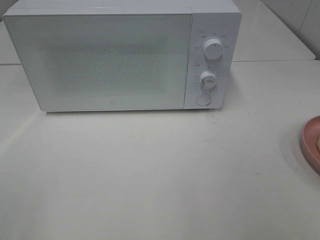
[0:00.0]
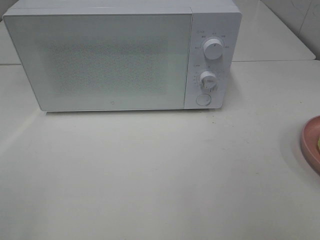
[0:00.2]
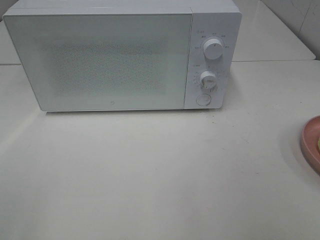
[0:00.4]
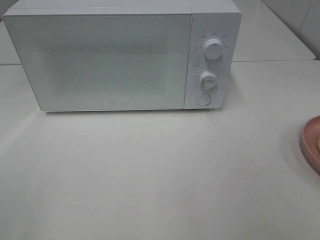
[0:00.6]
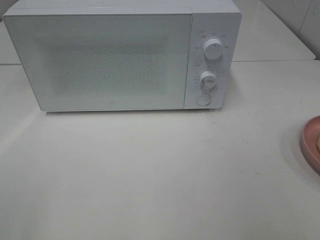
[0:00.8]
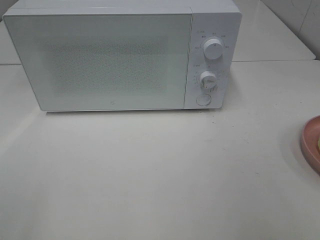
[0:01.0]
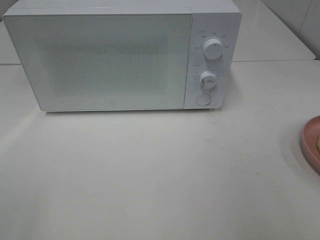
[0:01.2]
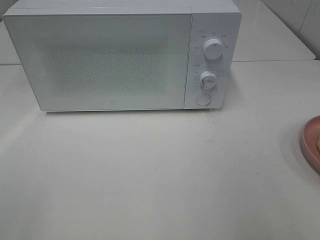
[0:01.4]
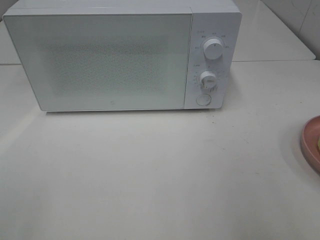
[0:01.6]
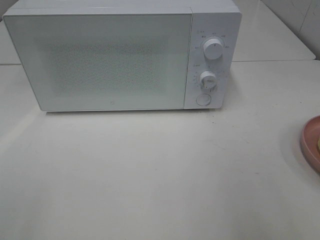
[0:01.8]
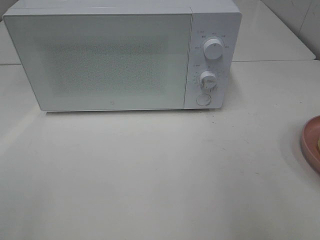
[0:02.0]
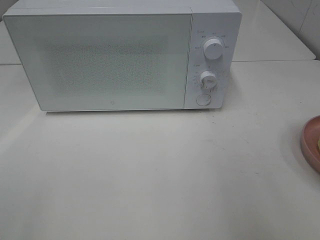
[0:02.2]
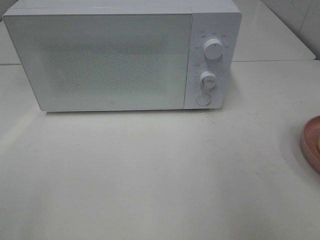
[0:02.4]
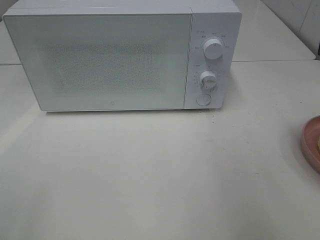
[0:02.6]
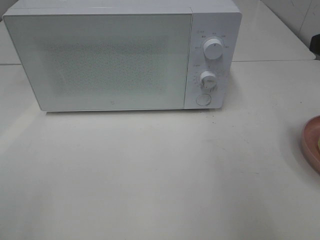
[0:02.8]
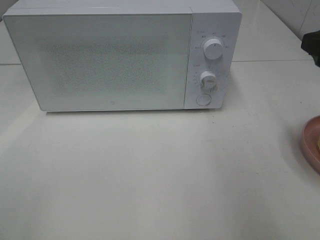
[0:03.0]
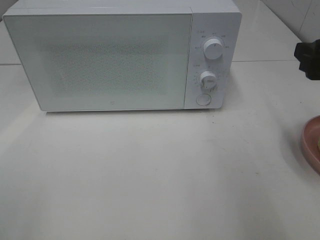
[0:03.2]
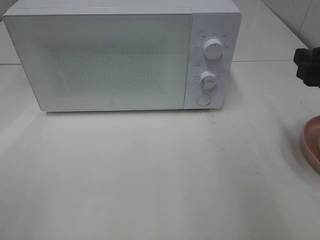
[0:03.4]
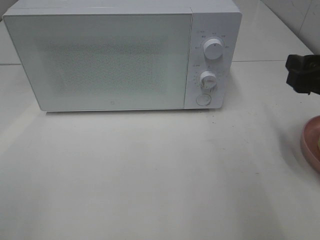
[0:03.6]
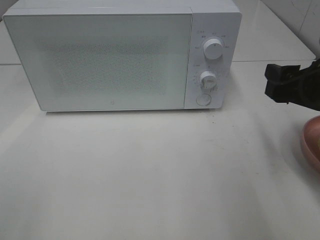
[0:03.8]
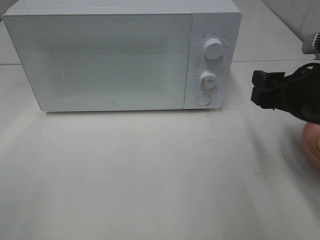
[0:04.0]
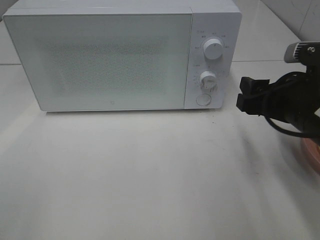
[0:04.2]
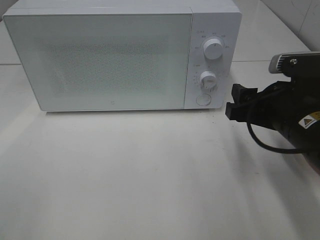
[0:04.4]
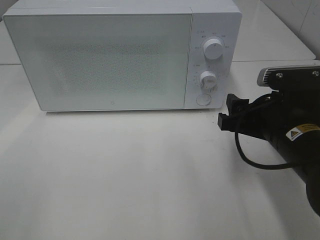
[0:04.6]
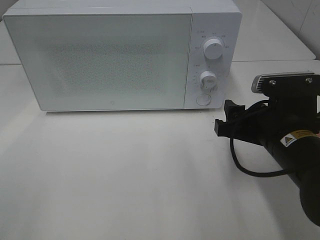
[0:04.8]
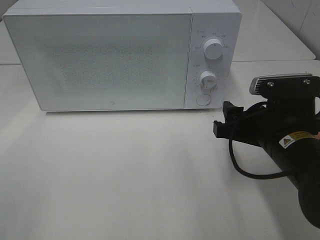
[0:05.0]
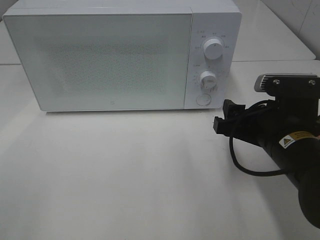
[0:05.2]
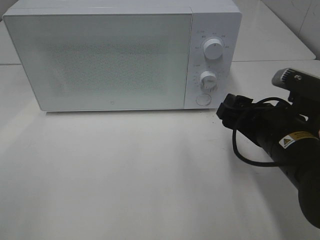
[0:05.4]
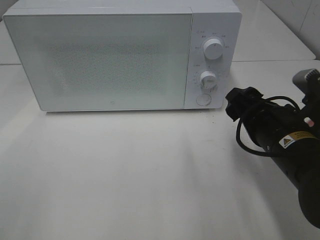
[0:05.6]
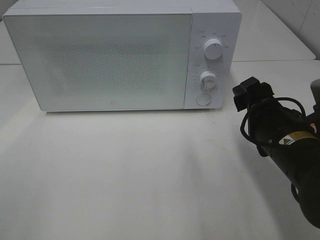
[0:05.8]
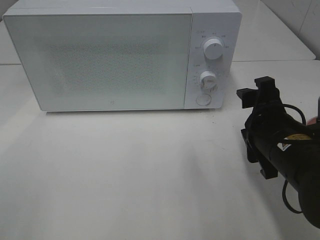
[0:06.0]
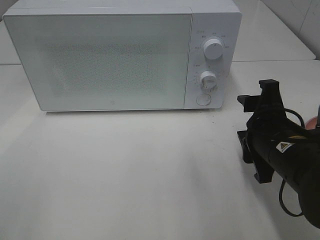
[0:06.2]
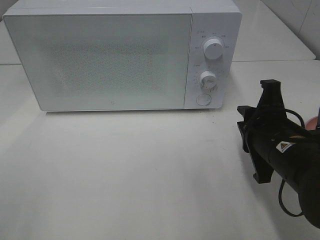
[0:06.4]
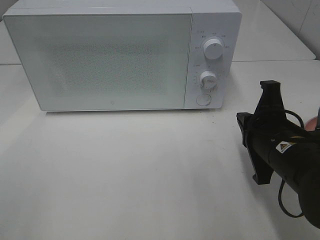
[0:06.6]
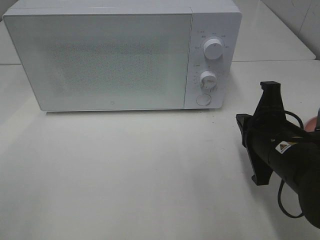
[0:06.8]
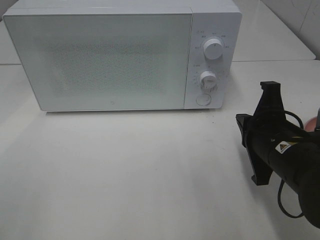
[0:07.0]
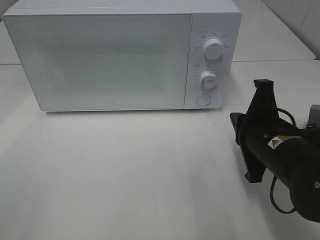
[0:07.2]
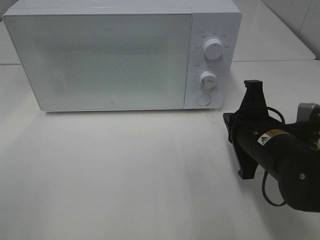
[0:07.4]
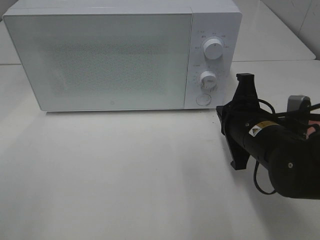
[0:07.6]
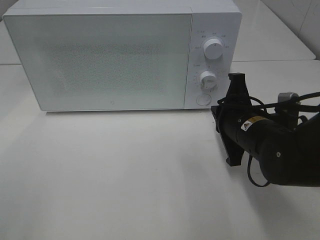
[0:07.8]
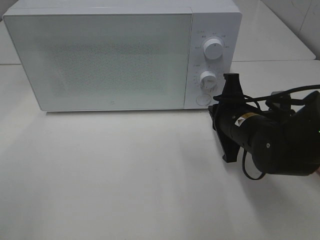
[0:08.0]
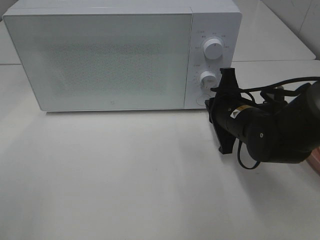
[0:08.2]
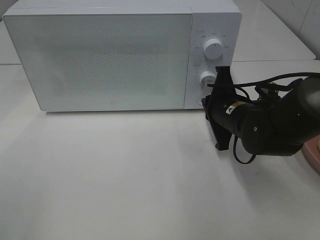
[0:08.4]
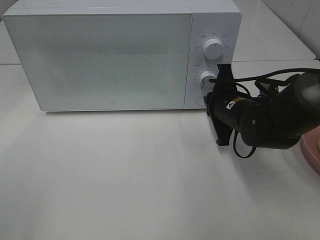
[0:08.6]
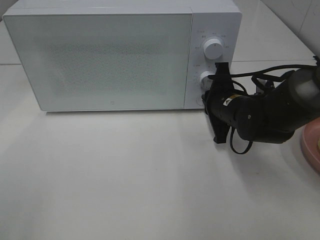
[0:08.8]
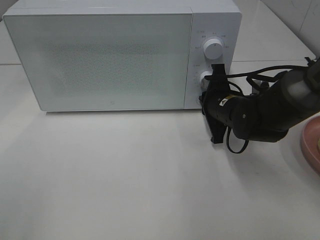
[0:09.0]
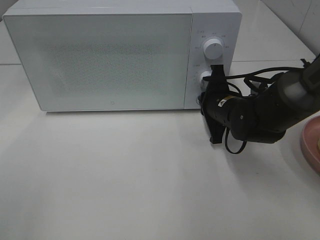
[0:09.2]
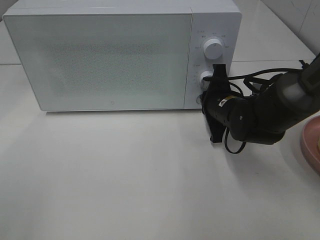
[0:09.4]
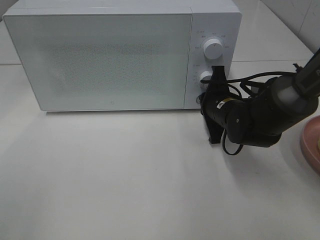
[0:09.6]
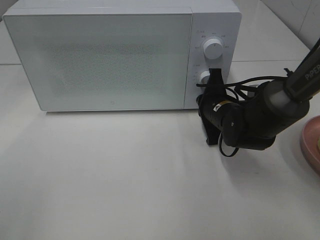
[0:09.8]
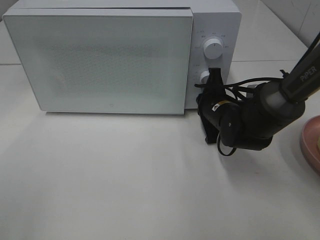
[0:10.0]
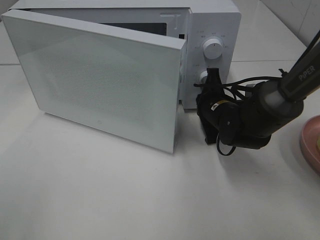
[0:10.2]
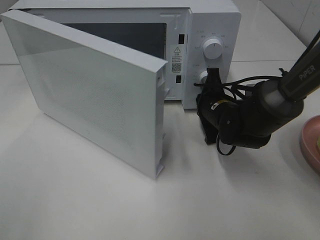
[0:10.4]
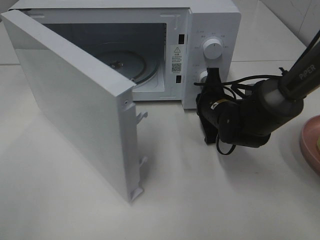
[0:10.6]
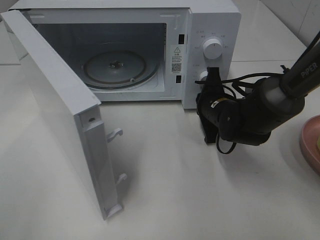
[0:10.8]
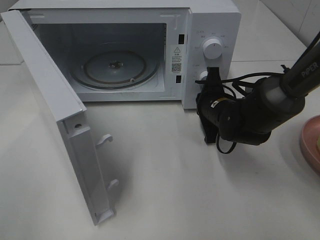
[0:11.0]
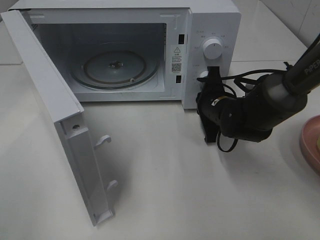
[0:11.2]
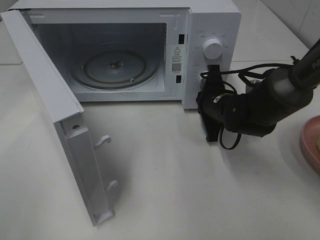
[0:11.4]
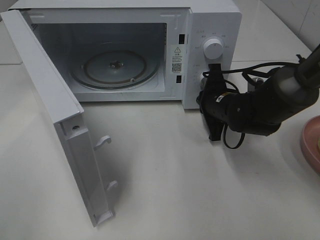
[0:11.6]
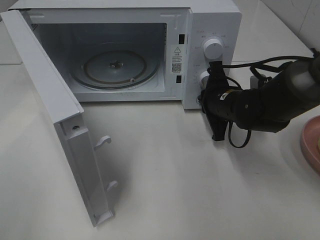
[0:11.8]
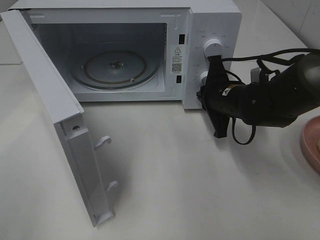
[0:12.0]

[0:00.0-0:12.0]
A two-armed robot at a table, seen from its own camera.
Task of the whole recording: Heat Sandwich.
0:01.6 to 0:03.0: The right gripper travels forward by roughly 10 cm.
0:03.0 to 0:04.4: The right gripper travels downward and to the left by about 15 cm.
0:06.0 to 0:07.6: The right gripper closes.
0:07.6 to 0:09.0: The right gripper shifts about 10 cm forward.

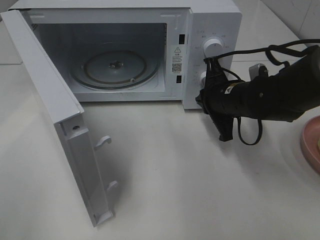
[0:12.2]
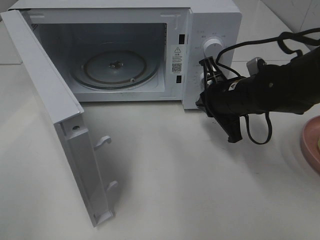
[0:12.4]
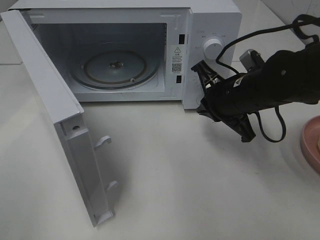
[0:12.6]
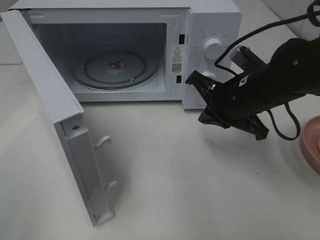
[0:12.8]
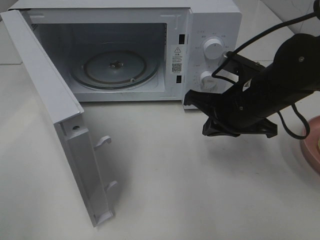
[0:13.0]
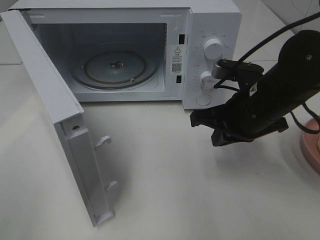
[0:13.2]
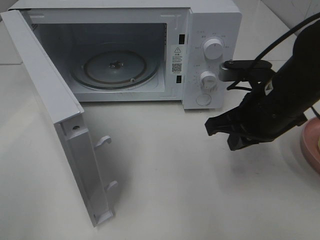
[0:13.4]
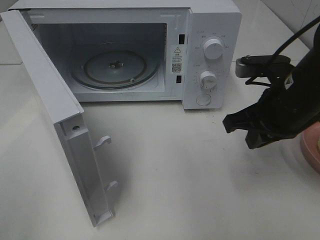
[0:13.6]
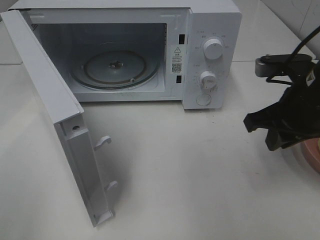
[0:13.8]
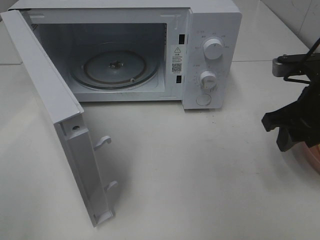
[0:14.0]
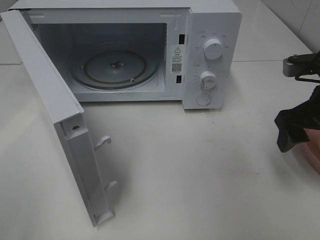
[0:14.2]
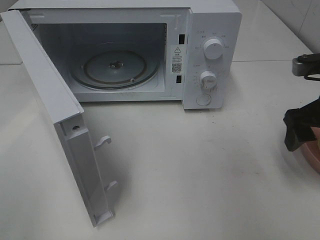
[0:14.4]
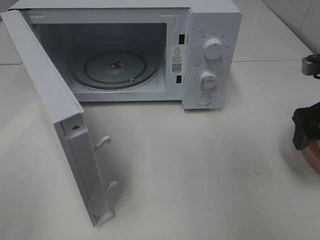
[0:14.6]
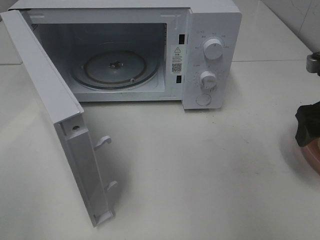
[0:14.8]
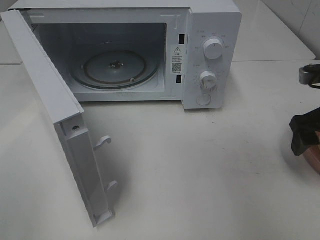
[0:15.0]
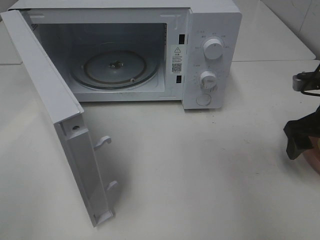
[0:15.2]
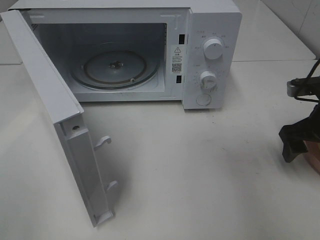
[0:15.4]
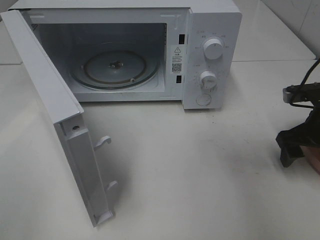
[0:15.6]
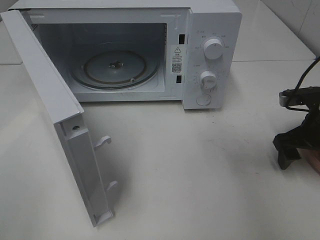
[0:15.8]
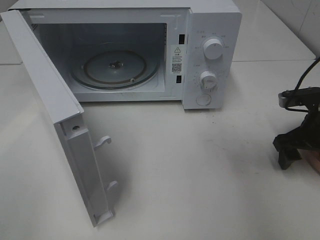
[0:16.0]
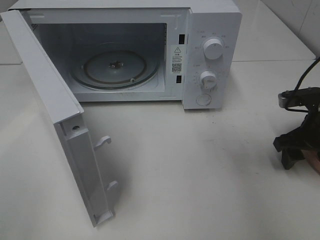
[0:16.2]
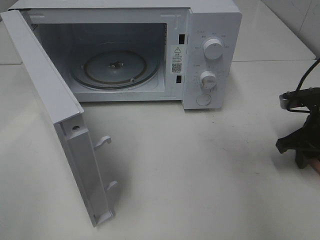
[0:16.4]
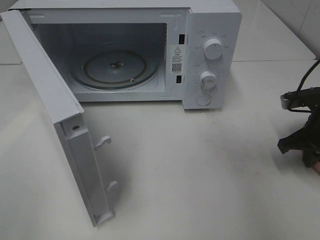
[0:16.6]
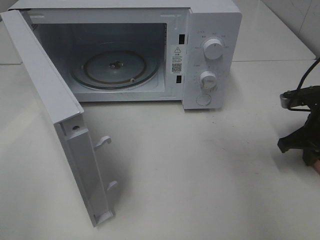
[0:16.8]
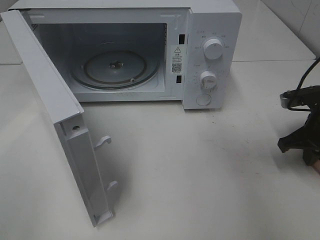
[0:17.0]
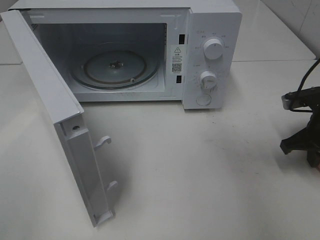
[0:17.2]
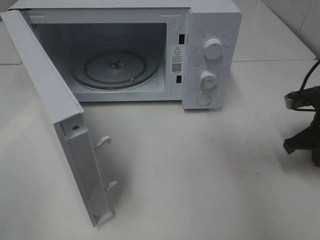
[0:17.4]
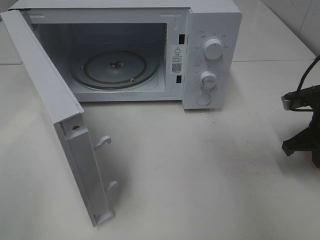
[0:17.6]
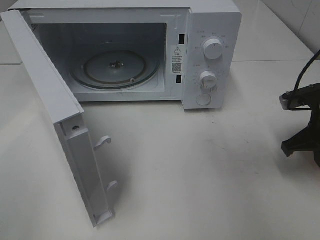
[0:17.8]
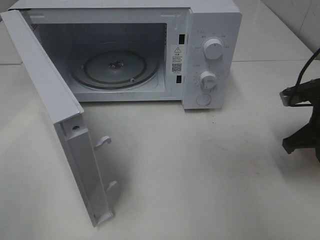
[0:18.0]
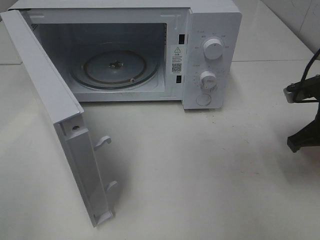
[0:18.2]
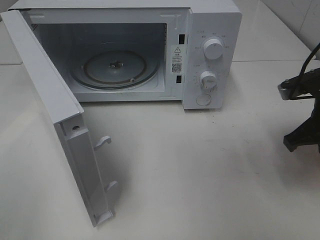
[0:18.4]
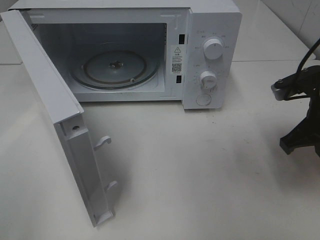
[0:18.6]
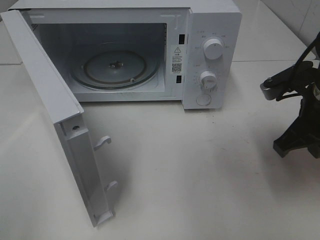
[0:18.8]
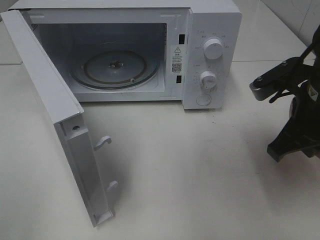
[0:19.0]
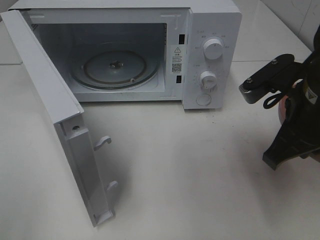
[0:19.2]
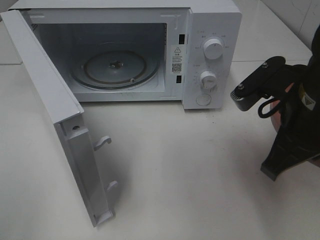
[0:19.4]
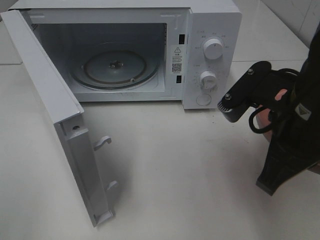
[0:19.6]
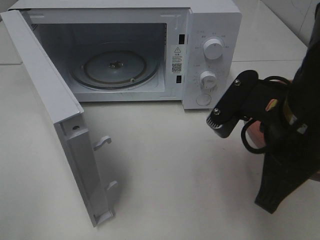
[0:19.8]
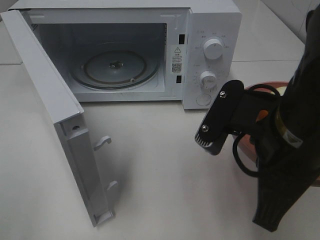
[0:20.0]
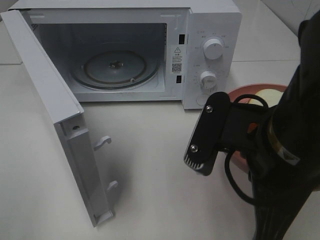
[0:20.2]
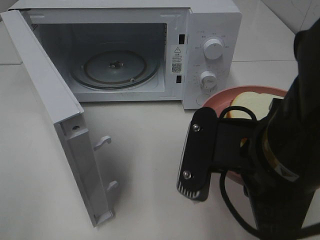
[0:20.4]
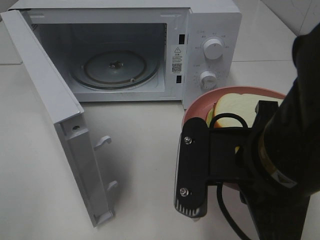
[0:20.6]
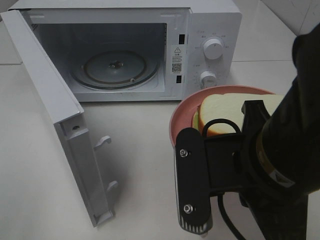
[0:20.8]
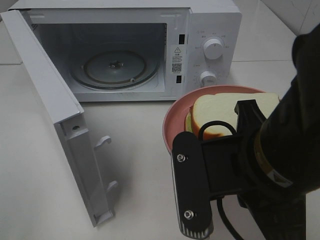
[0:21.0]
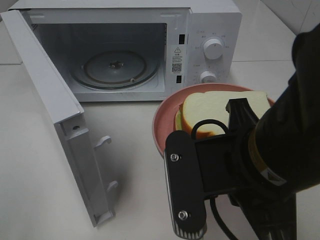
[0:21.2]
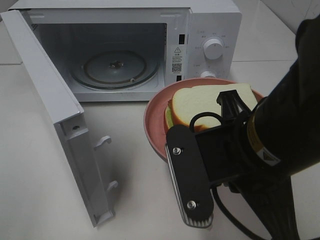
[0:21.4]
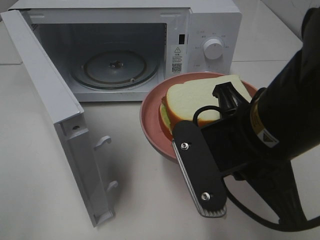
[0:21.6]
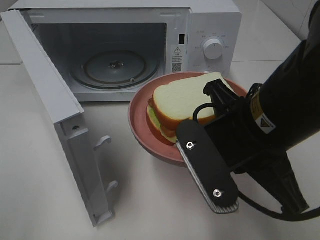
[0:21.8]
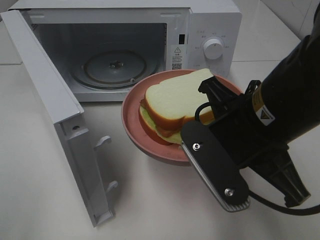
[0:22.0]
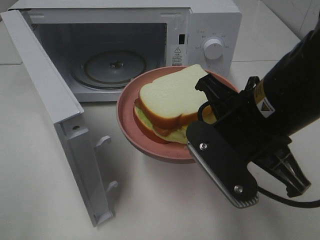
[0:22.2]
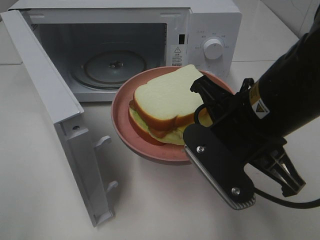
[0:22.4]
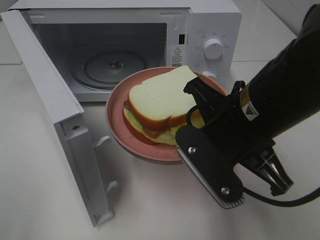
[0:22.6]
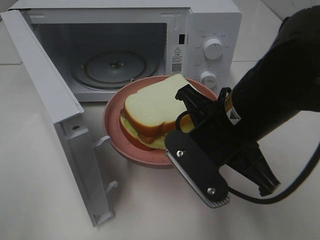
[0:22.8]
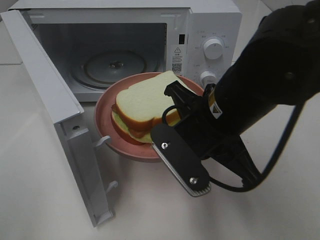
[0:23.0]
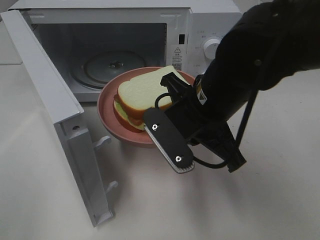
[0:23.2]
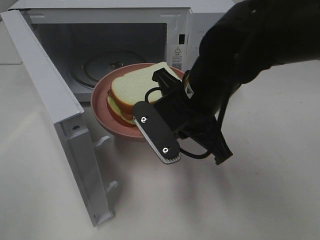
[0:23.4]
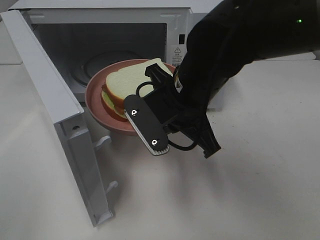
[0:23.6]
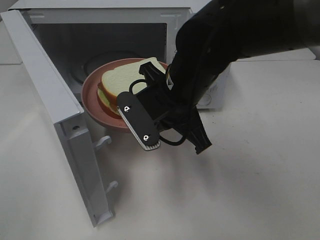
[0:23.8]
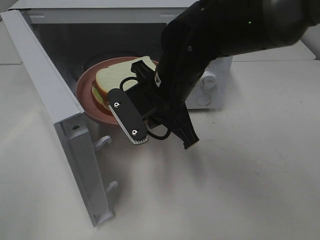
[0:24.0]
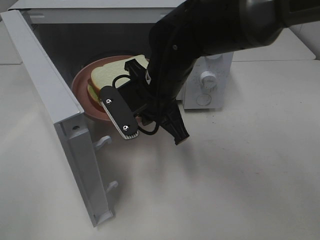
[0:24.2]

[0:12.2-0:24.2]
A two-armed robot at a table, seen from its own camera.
Task of the whole recording: Heat Sandwich.
Step, 0:12.2 to 0:17.2: Right hand: grab the plate with the sandwich.
0:12.2 to 0:13.8: The right gripper moves backward, upward and to the right, about 15 cm.
0:13.8 to 0:15.2: The right gripper travels to the right by some 10 cm, and opens.
0:15.2 to 0:16.6: The right gripper closes up.
0:16.6 to 0:18.2: The right gripper ends up roughly 5 cm from where it was.
0:18.2 to 0:19.8: The right gripper is displaced to the left, backward and upward by approximately 20 cm.
0:19.8 to 0:21.2: The right gripper shifts by approximately 5 cm.
0:21.2 to 0:22.6: The right gripper is displaced forward by about 5 cm.
0:22.6 to 0:24.2: The right gripper travels forward and to the left by roughly 15 cm.
